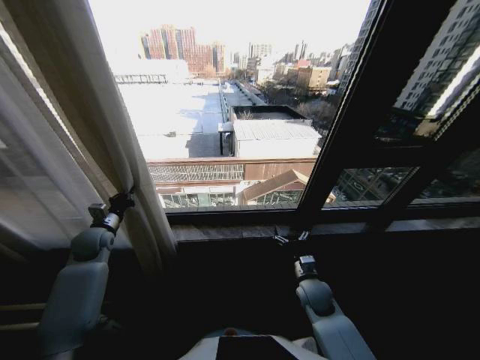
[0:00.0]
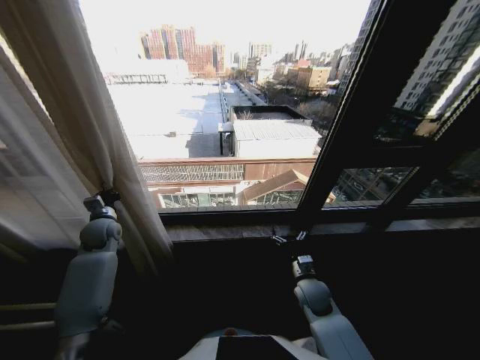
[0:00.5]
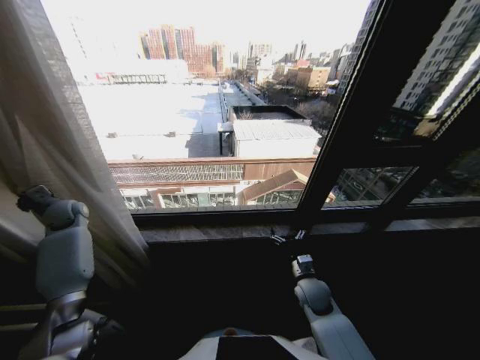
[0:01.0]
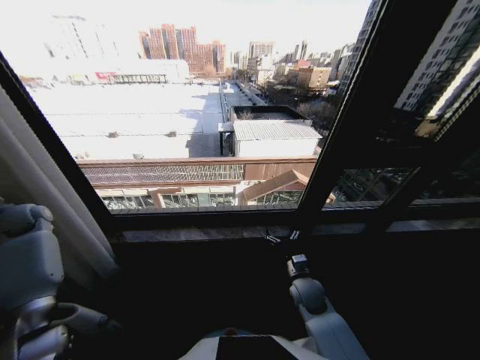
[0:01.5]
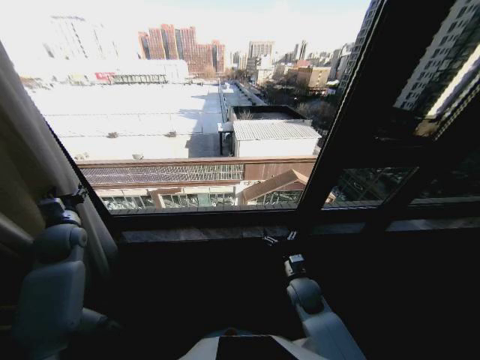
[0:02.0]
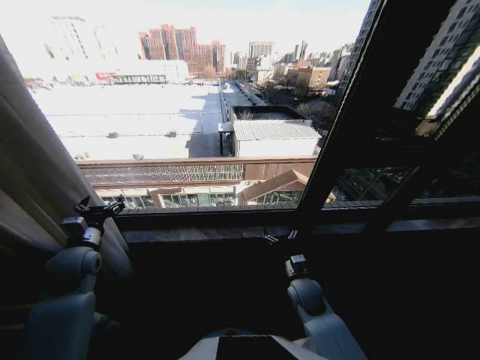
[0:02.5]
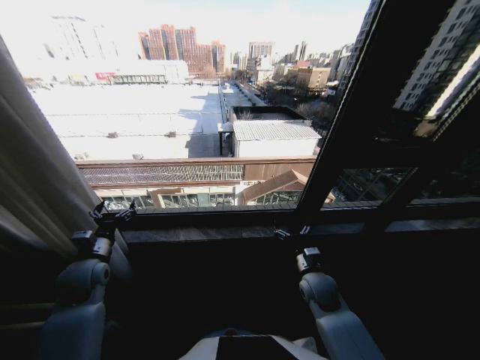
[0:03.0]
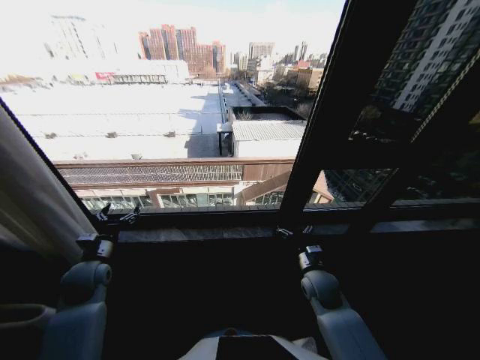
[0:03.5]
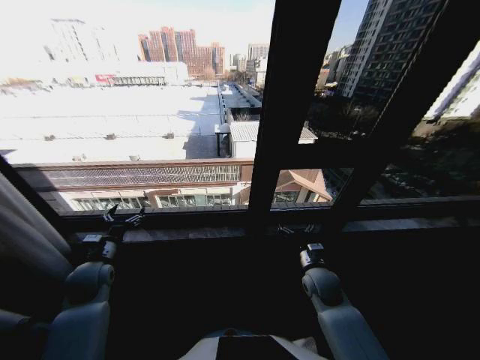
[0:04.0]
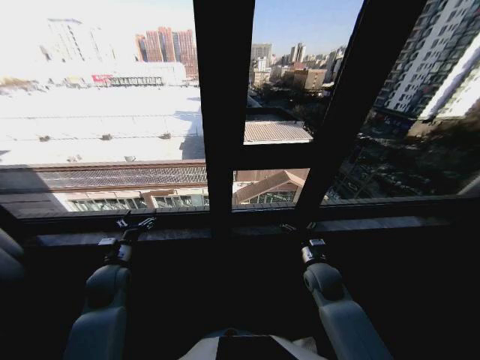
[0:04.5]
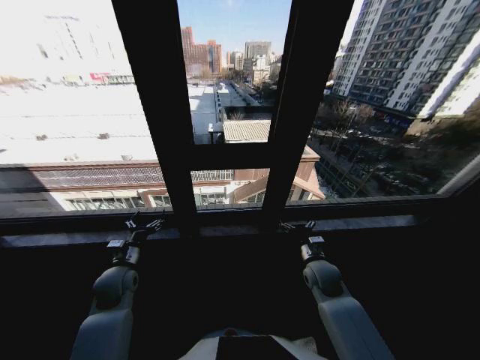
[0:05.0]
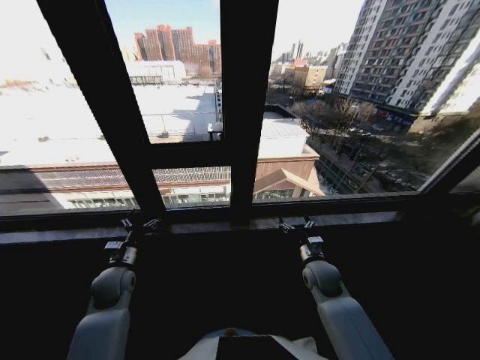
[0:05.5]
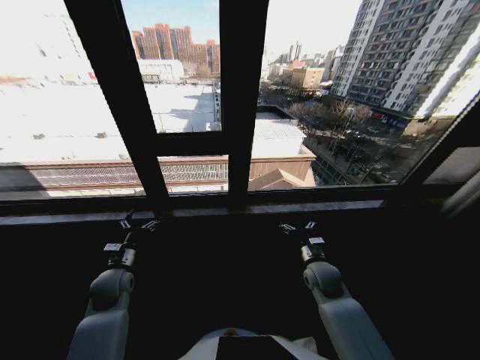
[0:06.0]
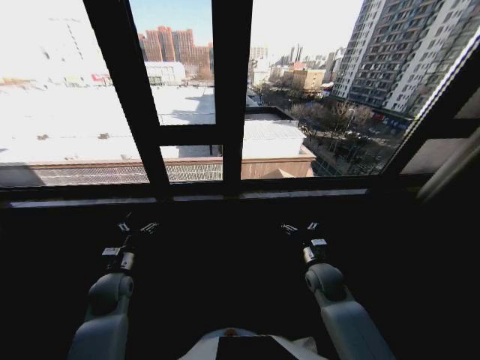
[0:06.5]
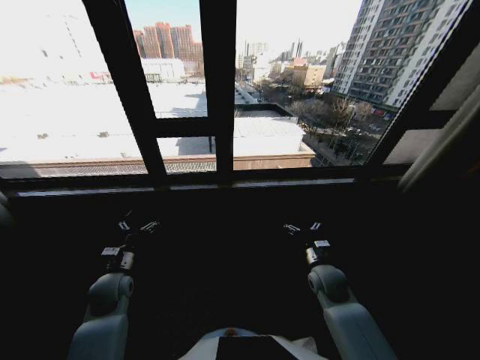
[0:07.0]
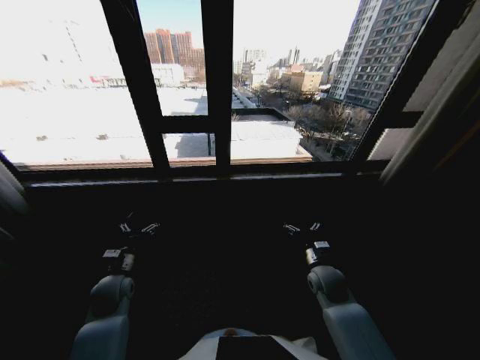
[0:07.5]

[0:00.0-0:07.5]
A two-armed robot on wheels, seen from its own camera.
Task of the whole recording: Open the curtains by pulling them apart, changing their state from closed to fully open.
0:00.0 to 0:02.0: The left gripper goes to the left and returns, roughly 20 cm each way, and opens.
0:02.0 to 0:04.0: The left gripper moves to the right, backward and downward, approximately 15 cm, and opens, while the right gripper ends up about 5 cm from where it was.
0:04.0 to 0:05.5: The left gripper goes about 5 cm to the right.

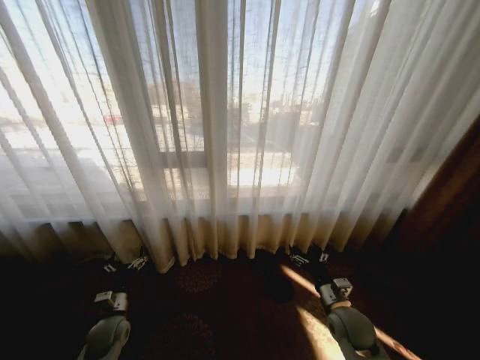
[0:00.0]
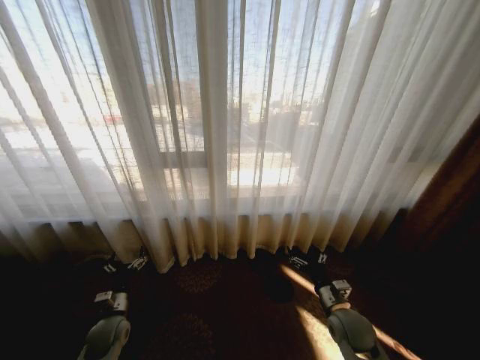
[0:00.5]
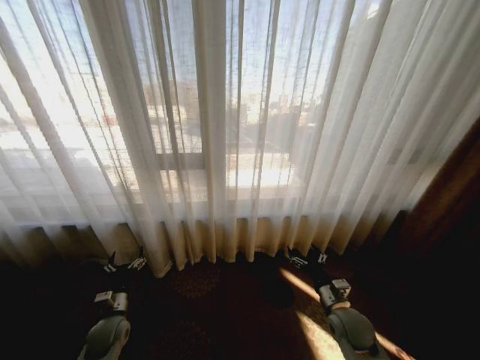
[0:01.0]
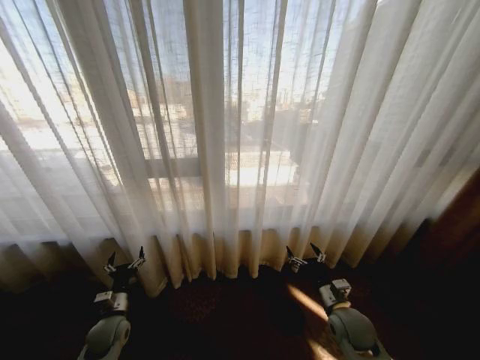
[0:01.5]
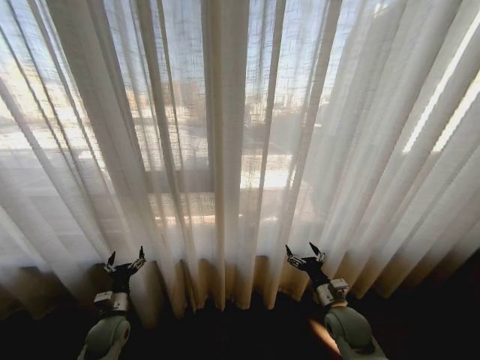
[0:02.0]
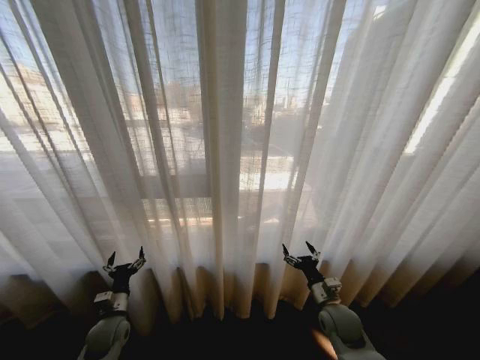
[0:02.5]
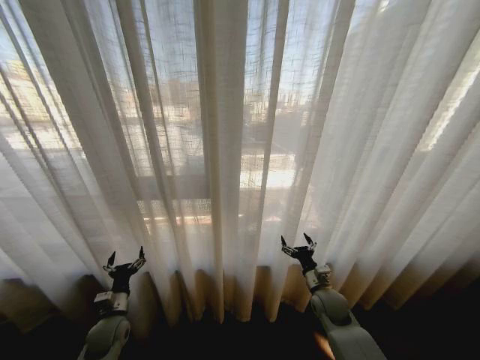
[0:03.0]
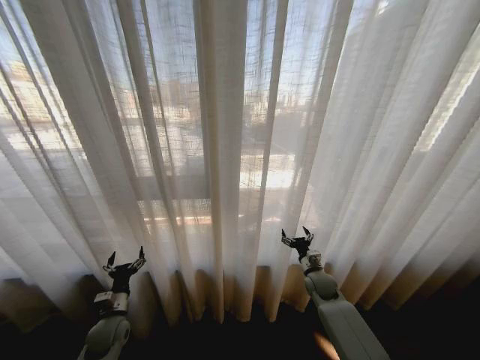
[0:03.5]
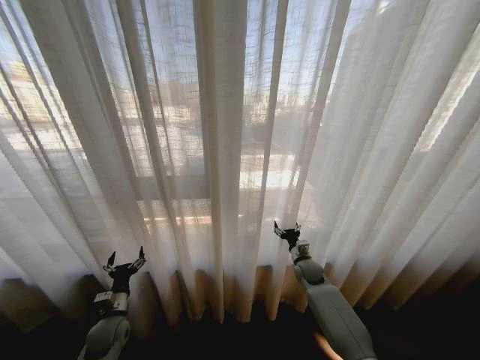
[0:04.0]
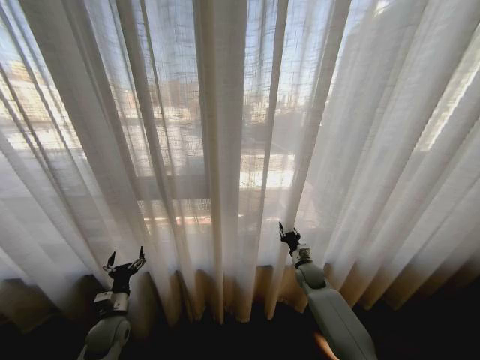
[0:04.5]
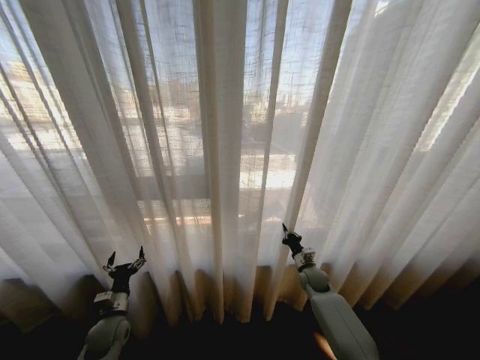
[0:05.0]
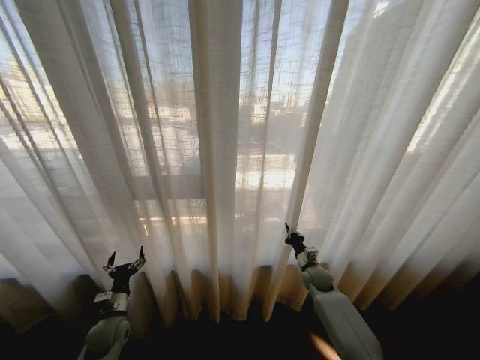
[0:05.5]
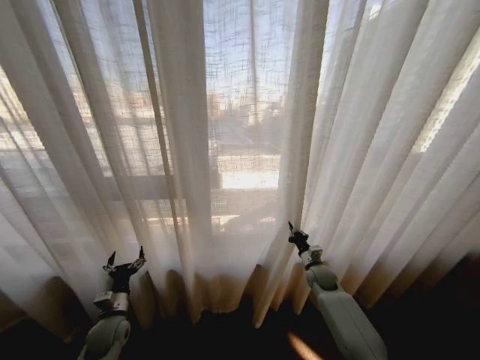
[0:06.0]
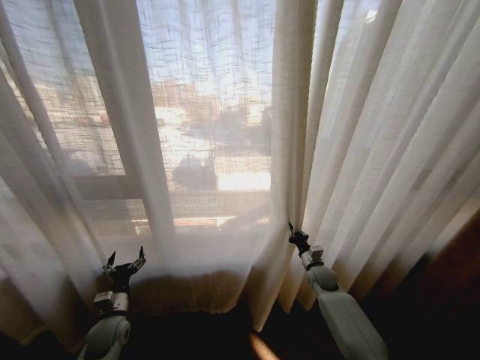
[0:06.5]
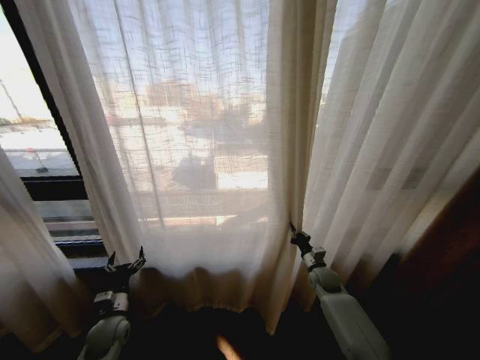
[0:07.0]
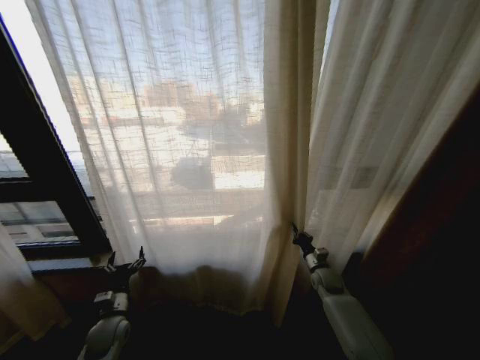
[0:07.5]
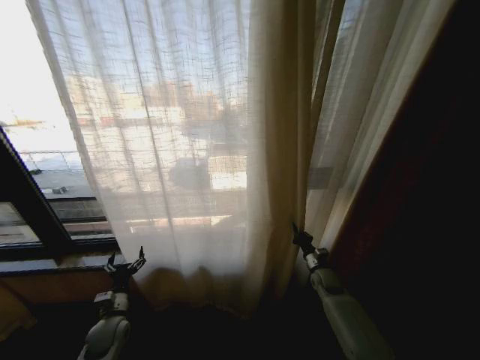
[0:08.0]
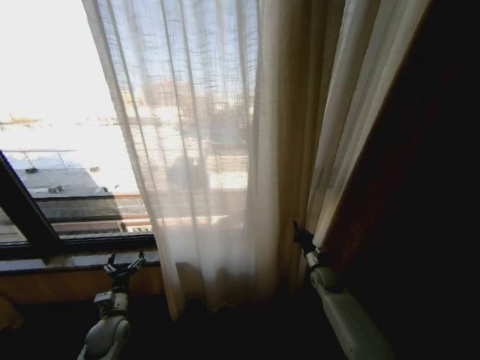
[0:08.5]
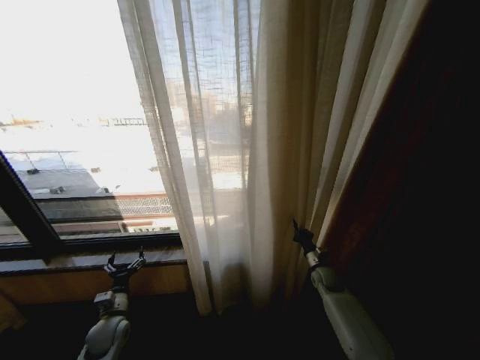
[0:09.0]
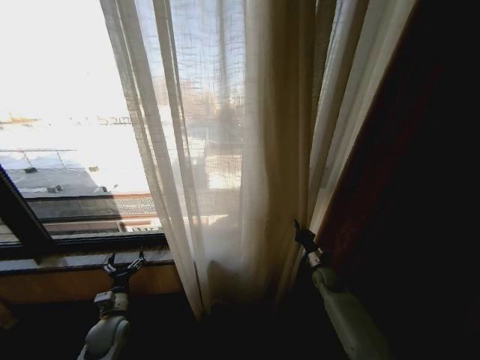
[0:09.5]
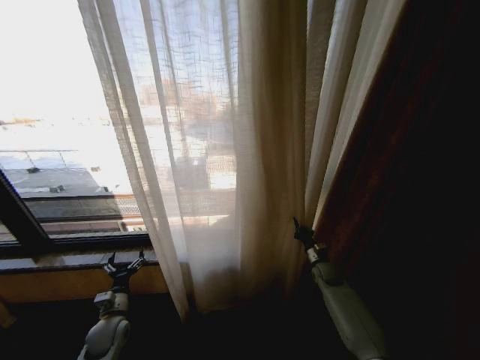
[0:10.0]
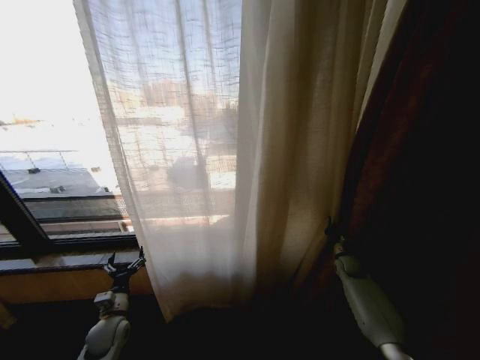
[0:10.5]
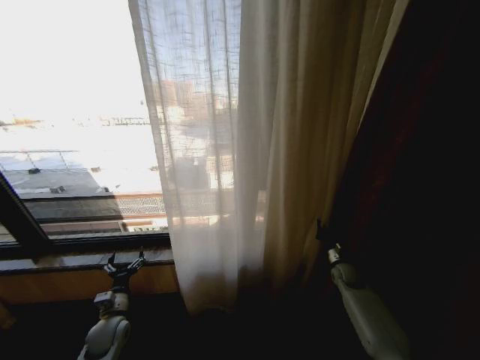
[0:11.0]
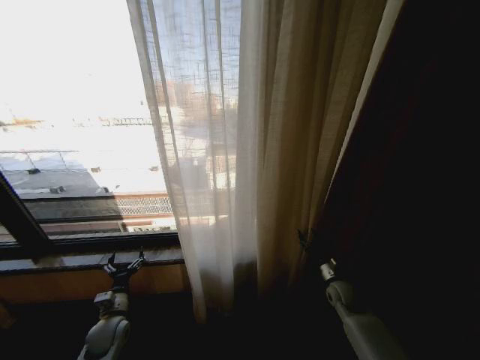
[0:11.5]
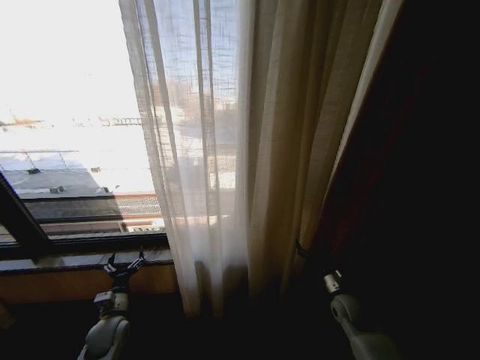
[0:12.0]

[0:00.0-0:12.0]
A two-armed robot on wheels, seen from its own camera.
Task of the whole recording: Open the curtains by pulling them apart, changing their state from closed to fully open.
0:02.0 to 0:04.0: The right gripper is displaced forward by approximately 20 cm.
0:04.0 to 0:06.0: The right gripper closes.
0:10.0 to 0:12.0: The right gripper heads backward, covering some 15 cm, and opens up.

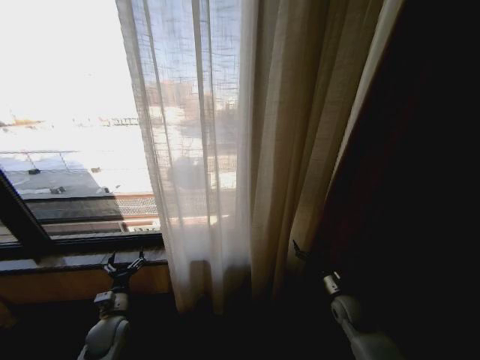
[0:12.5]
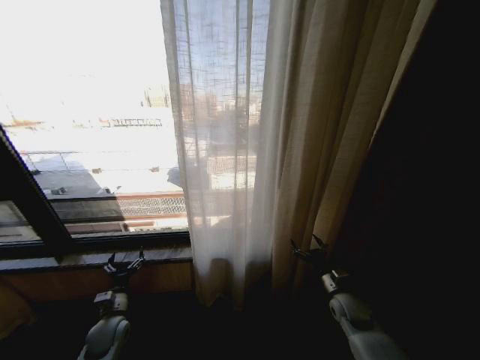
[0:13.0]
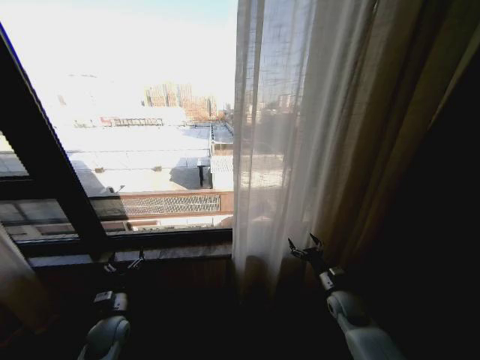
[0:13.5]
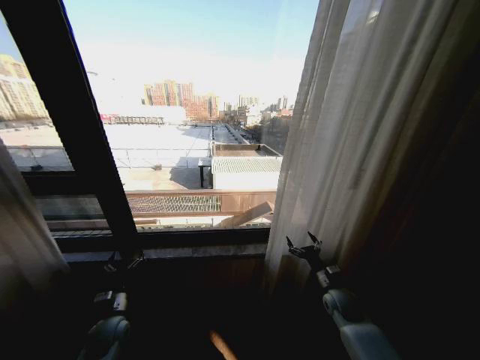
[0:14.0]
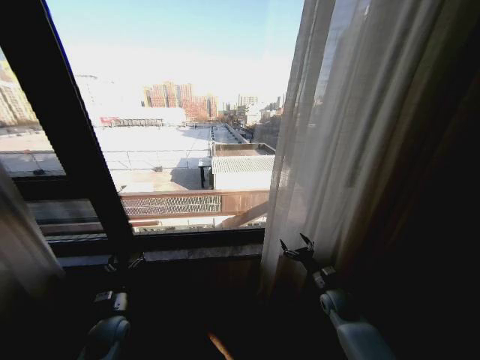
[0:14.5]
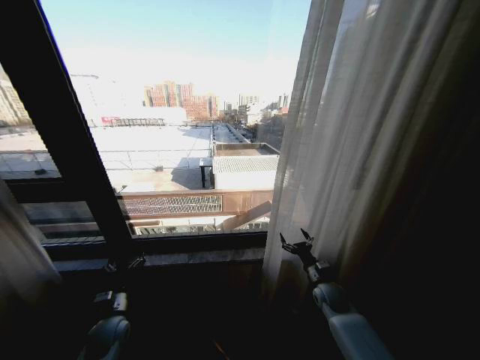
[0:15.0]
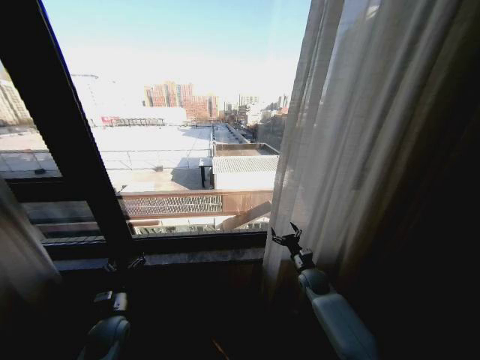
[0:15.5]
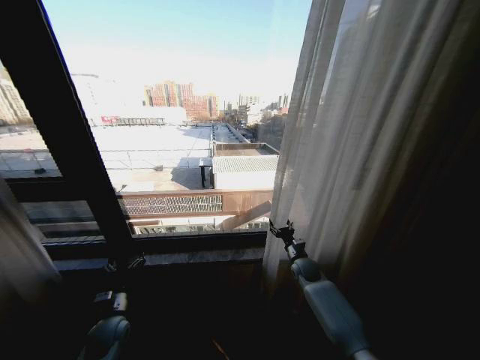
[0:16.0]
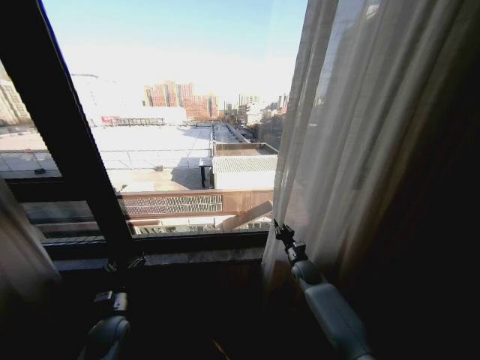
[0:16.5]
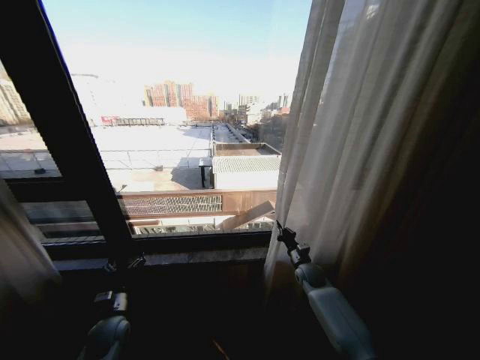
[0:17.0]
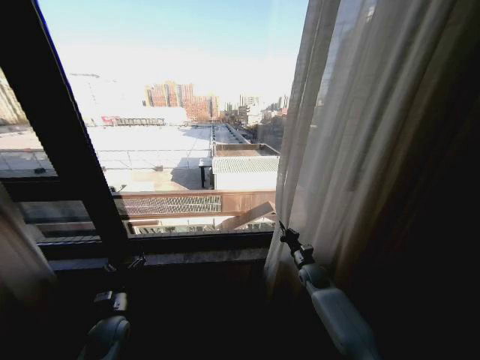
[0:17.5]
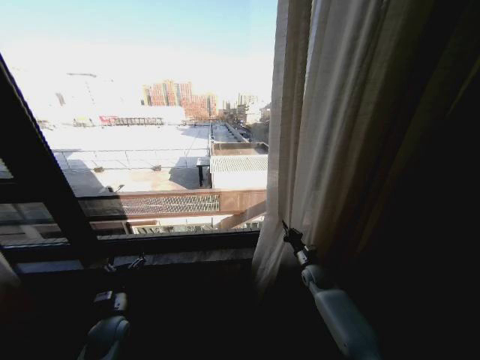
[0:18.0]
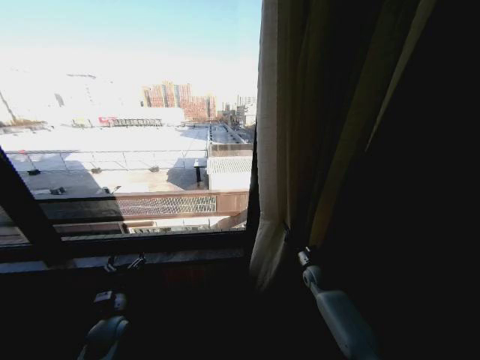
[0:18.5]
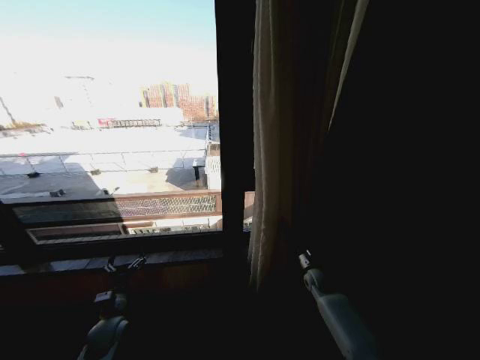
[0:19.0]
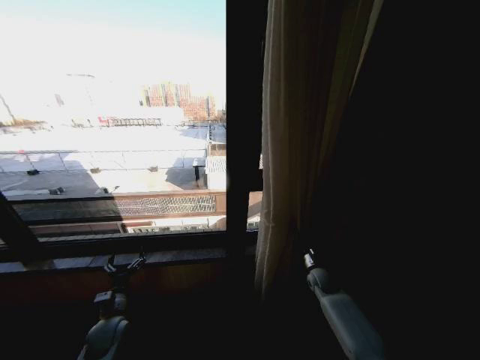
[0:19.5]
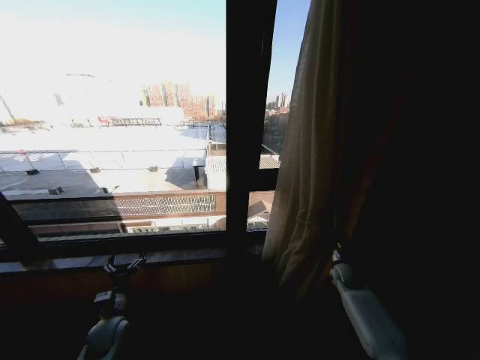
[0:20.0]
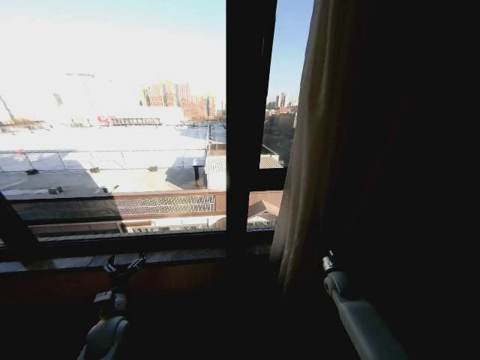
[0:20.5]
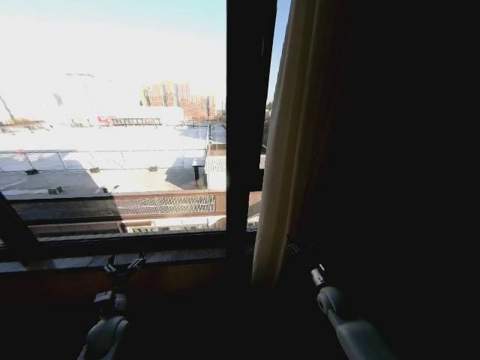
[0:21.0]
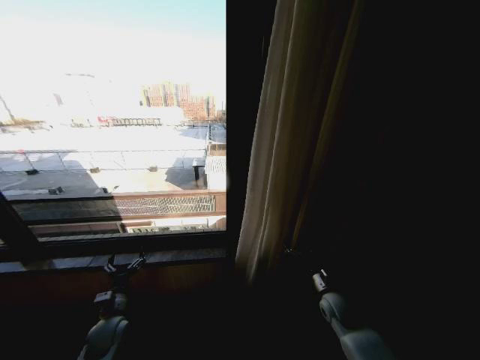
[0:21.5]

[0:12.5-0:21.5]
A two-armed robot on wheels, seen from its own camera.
Task of the whole recording: Open the curtains by pulling them apart, changing their state from closed to fully open.
0:14.5 to 0:17.0: The right gripper is displaced forward and to the left by approximately 10 cm, and closes.
0:19.5 to 0:21.5: The right gripper shifts about 10 cm backward, and opens up.
